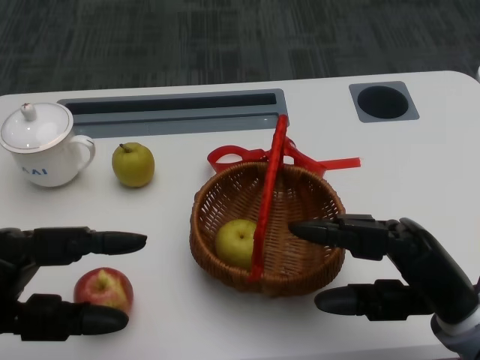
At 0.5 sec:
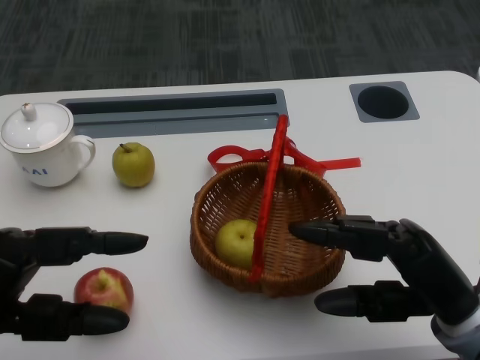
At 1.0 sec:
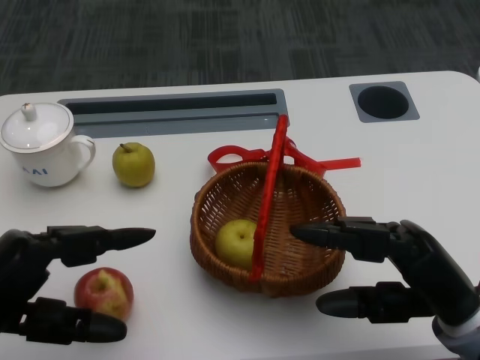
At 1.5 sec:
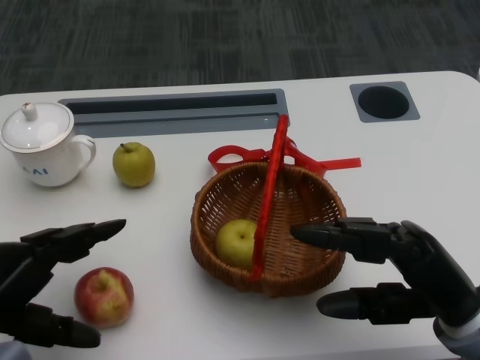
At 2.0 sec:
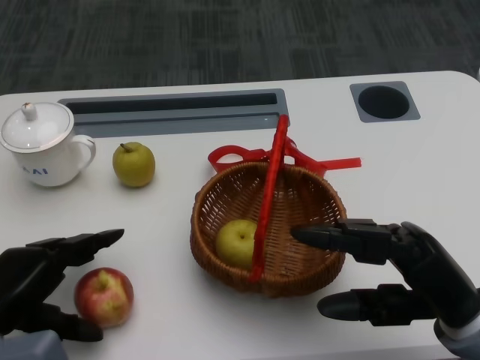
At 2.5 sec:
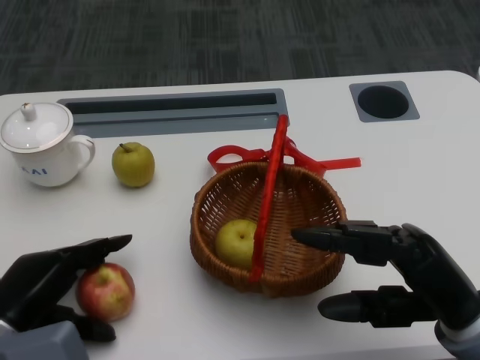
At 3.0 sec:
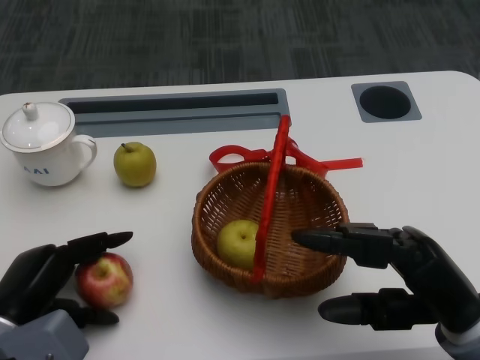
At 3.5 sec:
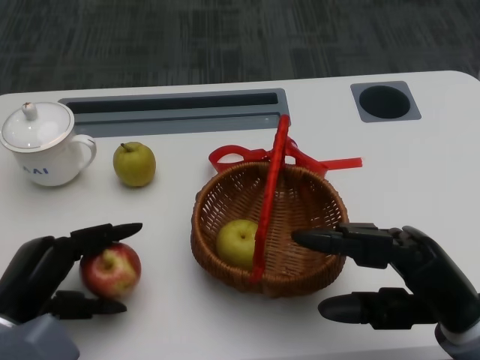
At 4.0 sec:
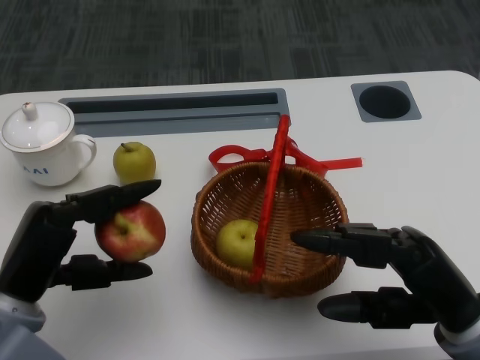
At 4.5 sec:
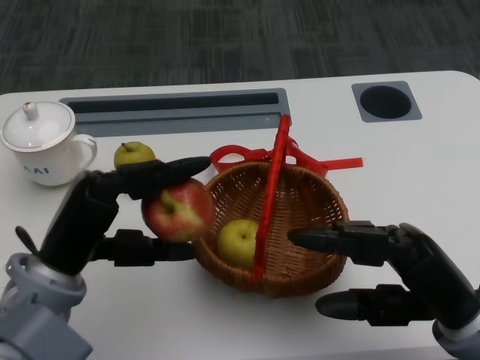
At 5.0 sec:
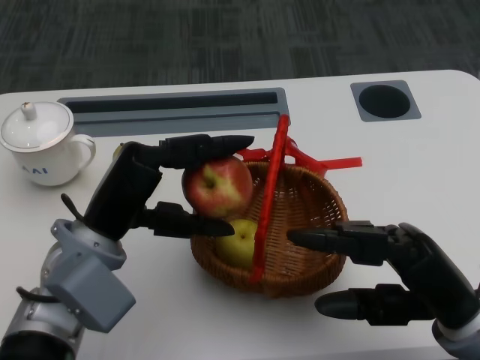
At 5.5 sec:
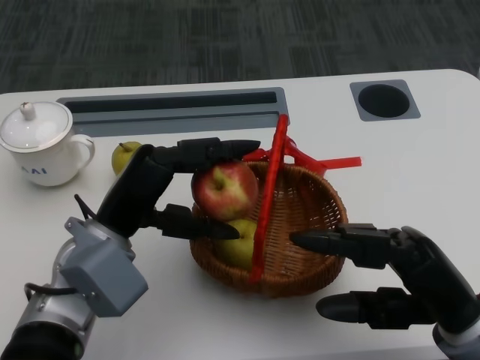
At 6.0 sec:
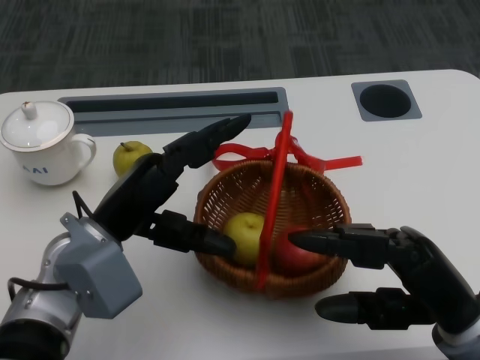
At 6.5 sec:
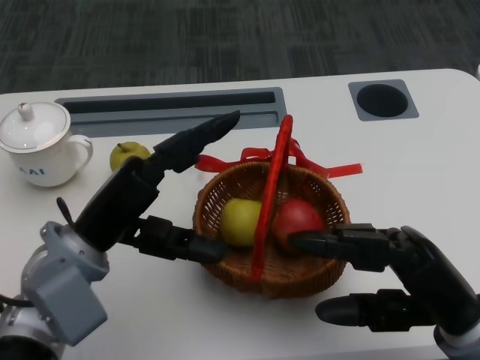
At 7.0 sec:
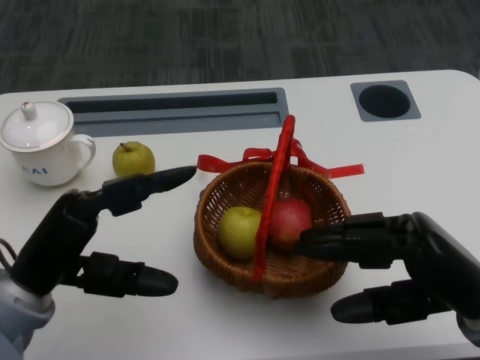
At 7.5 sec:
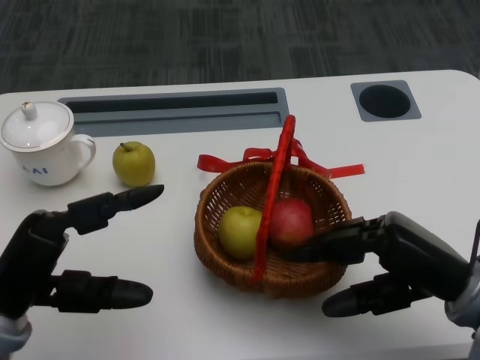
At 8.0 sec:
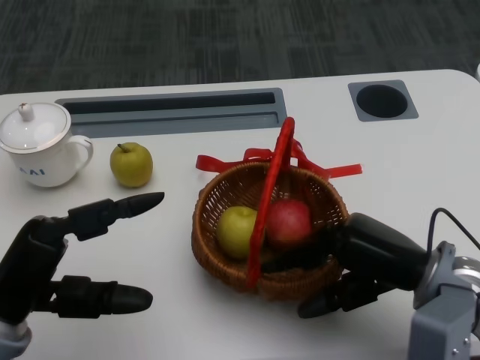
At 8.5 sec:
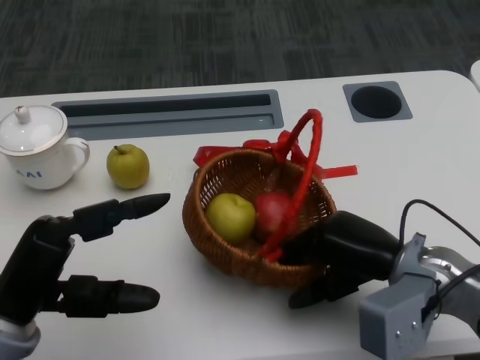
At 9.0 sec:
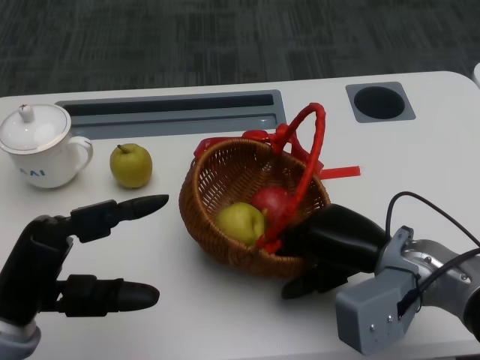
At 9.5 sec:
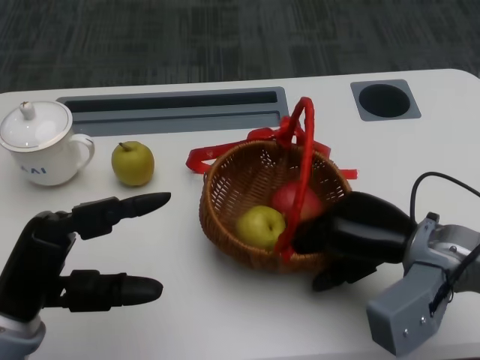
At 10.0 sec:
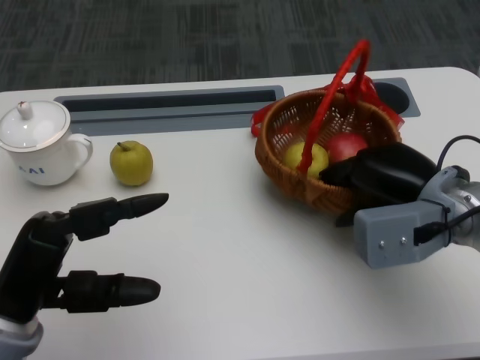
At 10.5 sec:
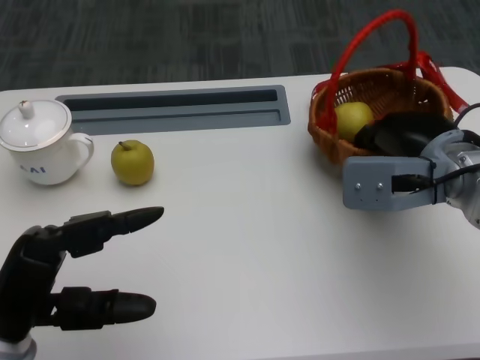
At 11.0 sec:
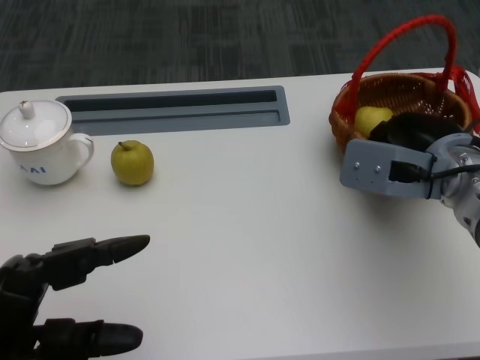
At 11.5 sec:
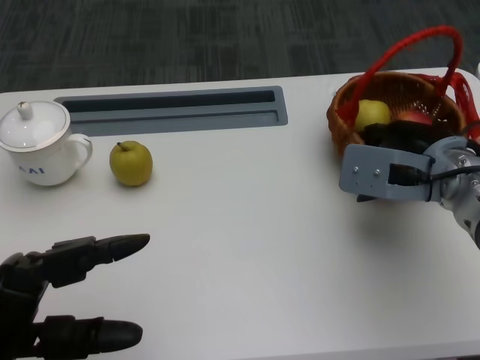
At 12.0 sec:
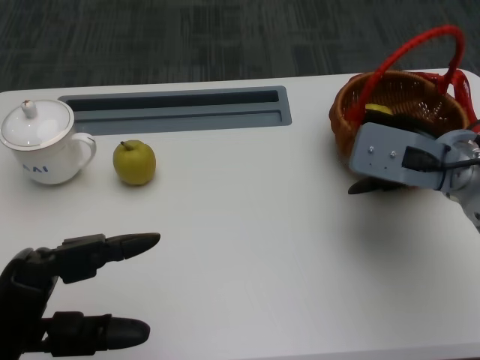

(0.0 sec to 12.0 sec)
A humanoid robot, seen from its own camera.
Step, 1.0 sec - 2.0 sec: Grasp the apple with the left gripper.
Step, 2.5 sec - 5.0 sec: Place the apple into the basket with the left gripper.
Step, 5.5 sec - 7.0 sec: Grasp the basket with the right gripper.
Step, 7.5 sec - 9.0 sec: Move the basket to the front of the table with the right gripper.
4.0 sec - 6.0 sec: The left hand shifts roughly 10 cm to the right and forward.
6.0 sec - 8.0 sec: The left hand travels to the left and backward by roughly 10 cm; the right hand shifts approximately 5 cm forward.
8.0 sec - 10.0 sec: The right hand goes about 5 cm forward.

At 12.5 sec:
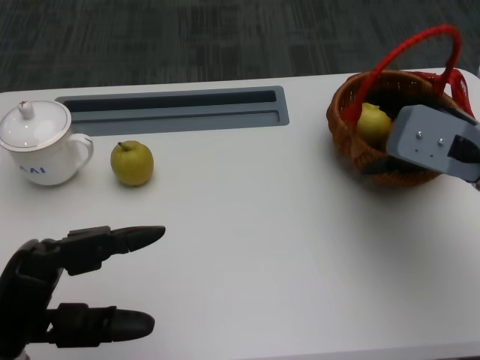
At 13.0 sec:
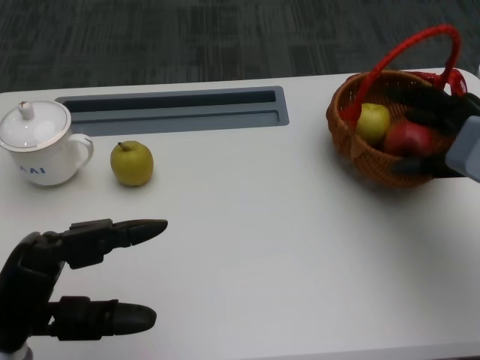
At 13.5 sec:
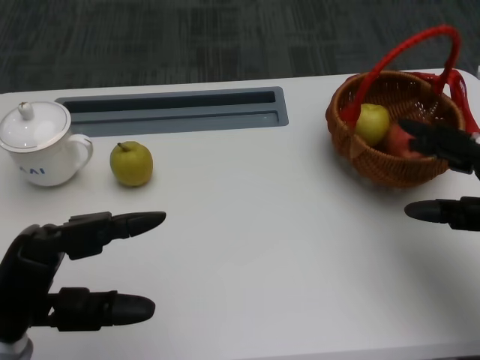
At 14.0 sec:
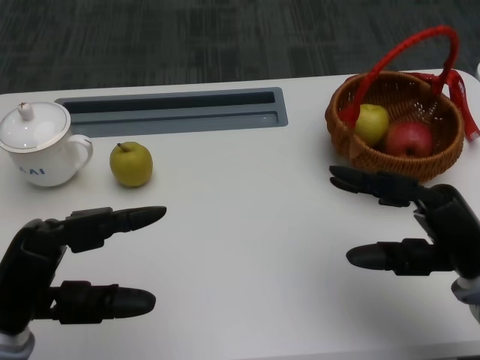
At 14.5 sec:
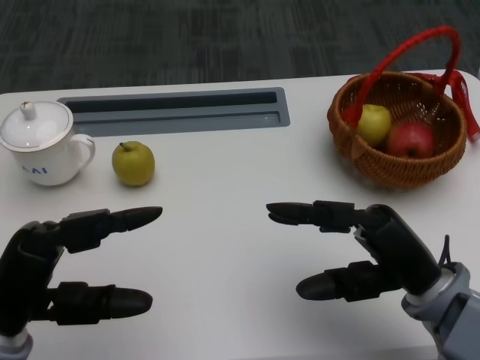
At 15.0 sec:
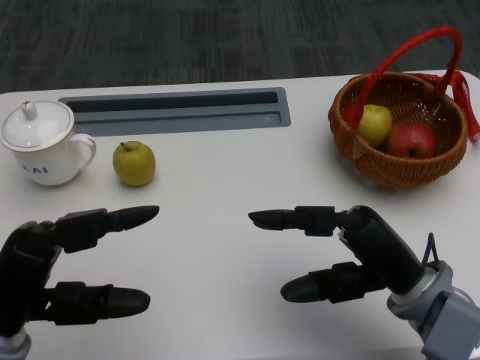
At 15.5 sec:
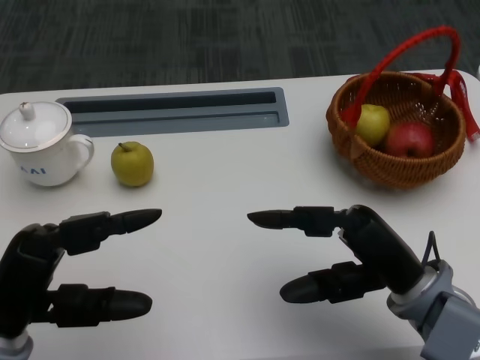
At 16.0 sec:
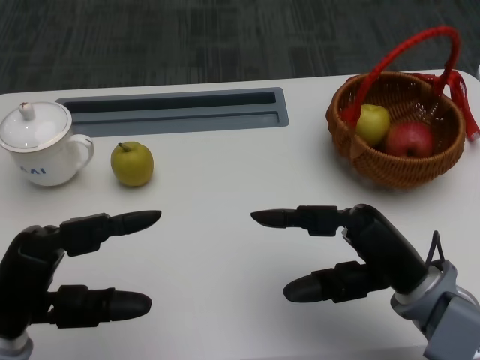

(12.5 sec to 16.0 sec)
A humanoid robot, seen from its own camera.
12.5 sec - 14.5 sec: The right hand goes roughly 15 cm backward and downward.
14.5 sec - 16.0 sec: There are only small adjustments of the hands.
